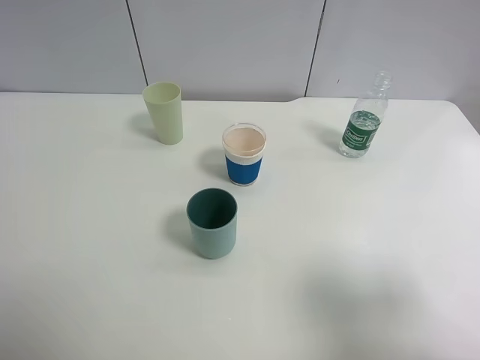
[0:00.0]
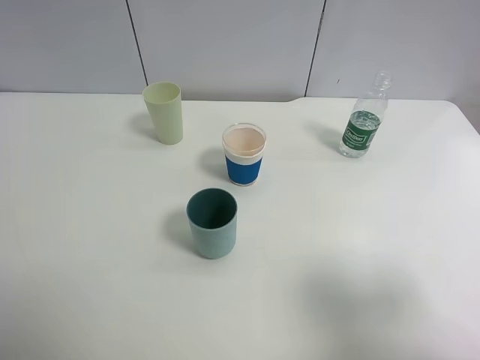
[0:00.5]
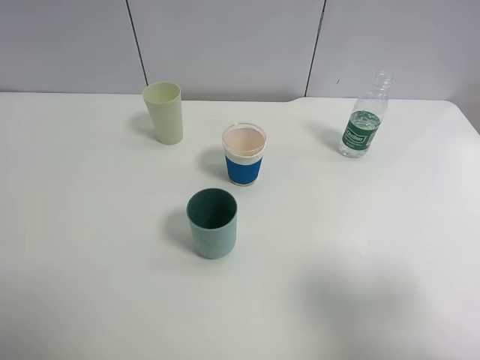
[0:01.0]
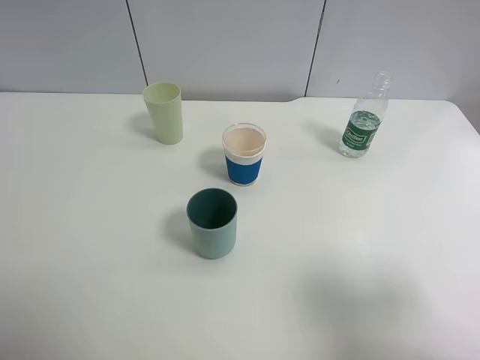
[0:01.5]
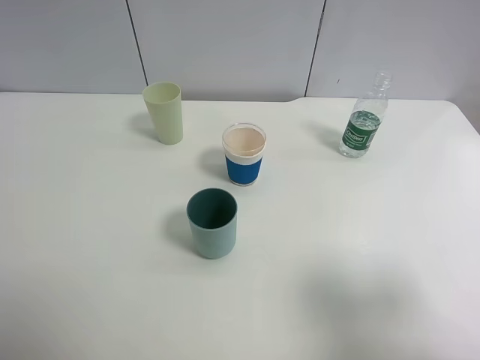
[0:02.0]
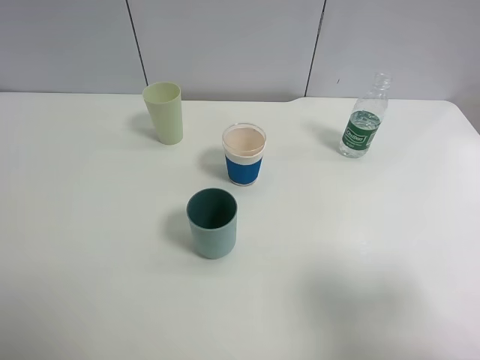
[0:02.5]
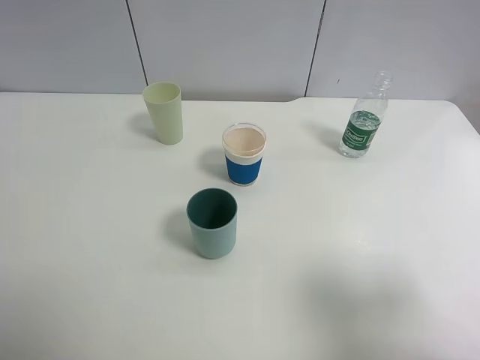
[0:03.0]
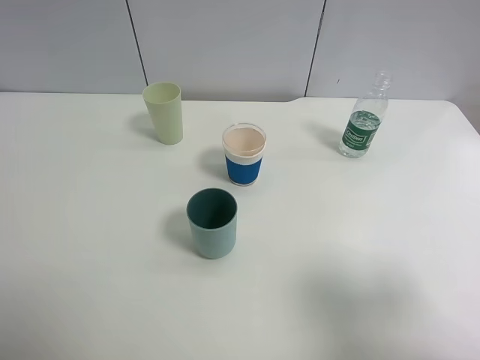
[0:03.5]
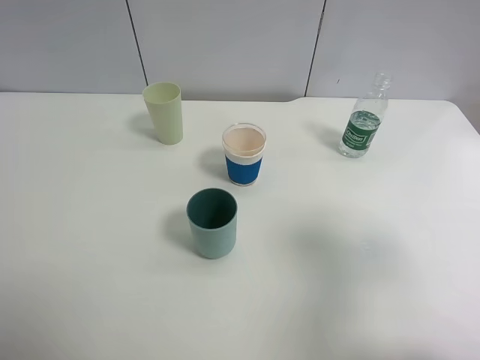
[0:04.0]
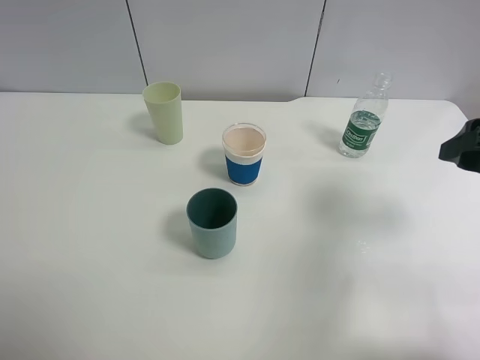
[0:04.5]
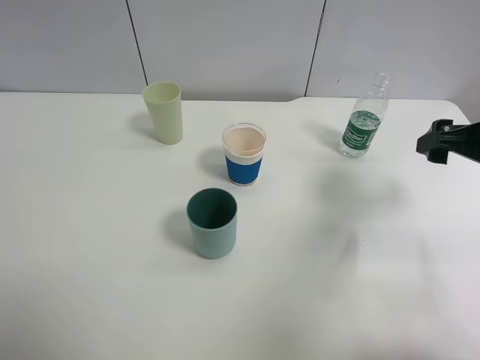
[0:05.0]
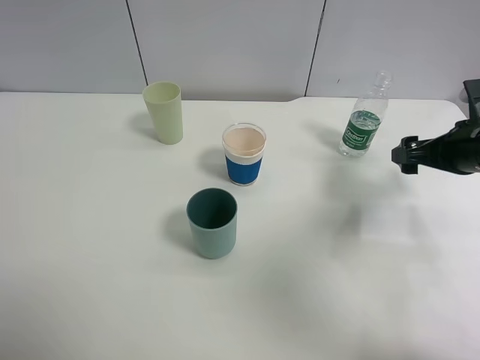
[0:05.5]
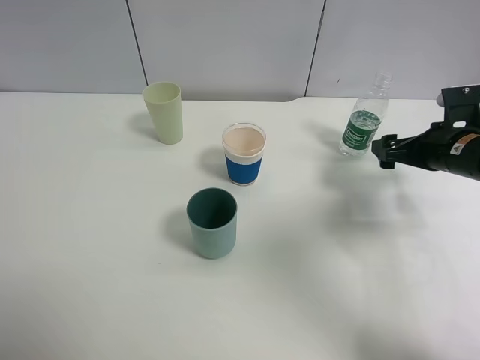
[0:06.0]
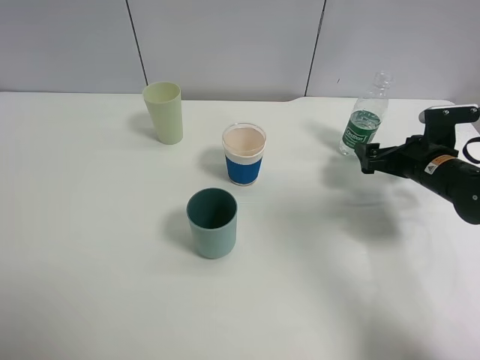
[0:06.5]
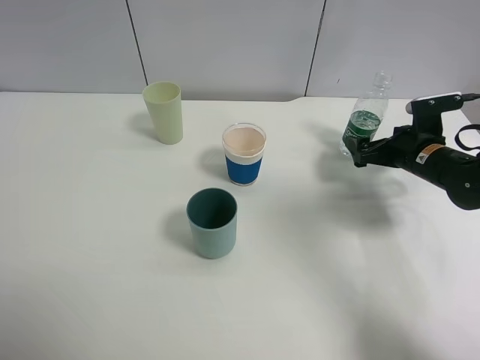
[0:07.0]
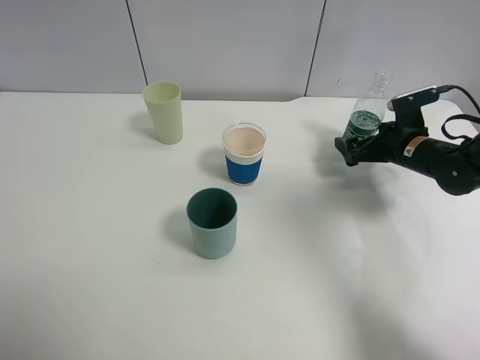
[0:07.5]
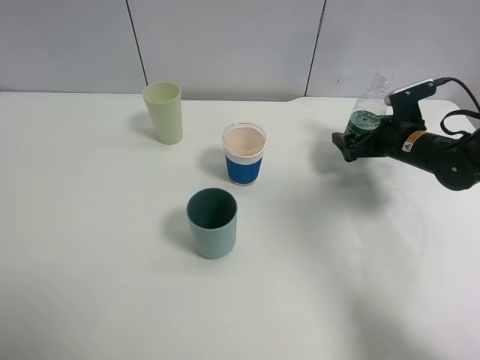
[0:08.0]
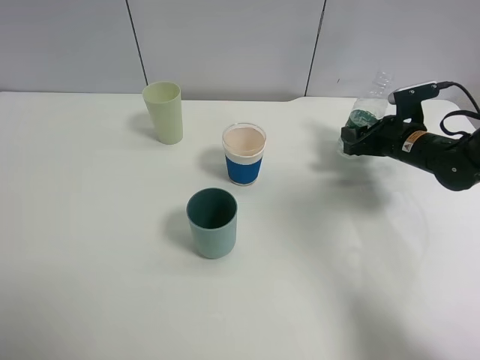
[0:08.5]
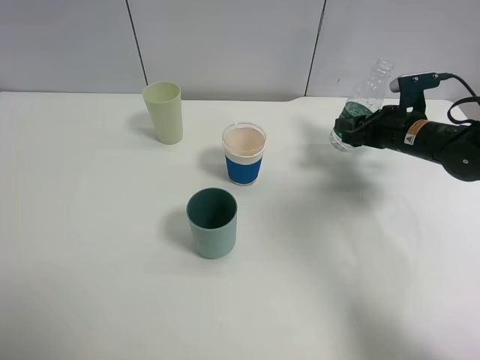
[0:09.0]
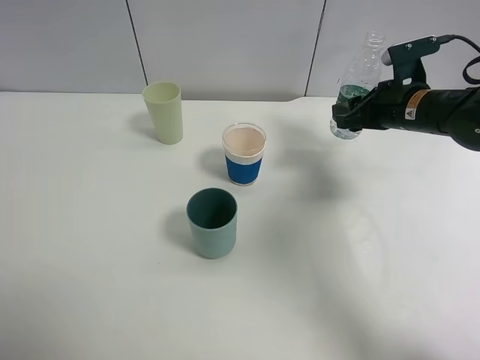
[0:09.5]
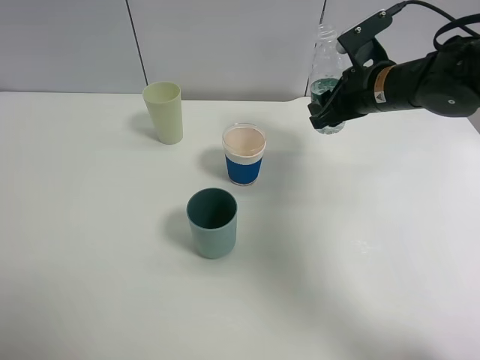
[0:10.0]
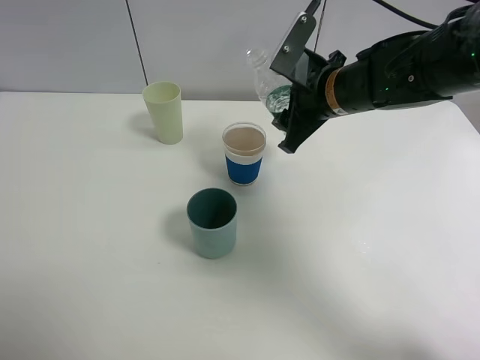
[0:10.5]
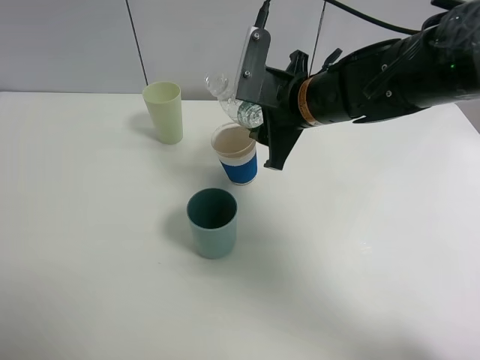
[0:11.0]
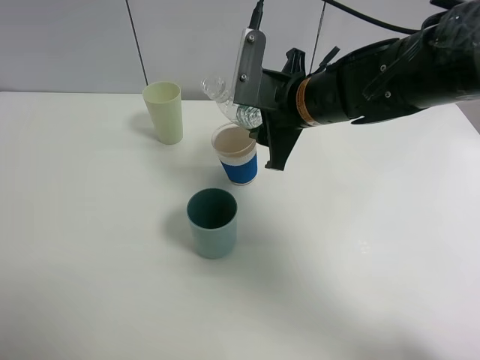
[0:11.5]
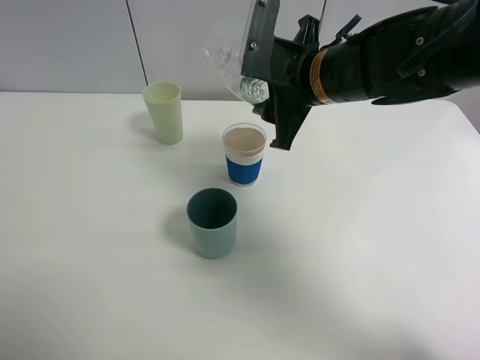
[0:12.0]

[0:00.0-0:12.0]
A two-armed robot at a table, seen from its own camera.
Task of the whole recording: use a clamp to hold the bottle of the drink, pour the beverage into a random cup, then clamp the cup containing the drink and pour the drink into another random cup.
Step, 0:00.0 to 0:09.0: Pick up the water bottle with right gripper.
0:00.0 to 0:02.0: Neither gripper changes place.
0:02.0 to 0:04.0: The right gripper travels forward by approximately 10 cm.
0:04.0 to 0:06.0: The right gripper heads forward and downward, covering some 25 cm.
0:06.0 to 0:08.0: The right gripper moves forward, about 5 cm.
0:08.0 to 0:10.0: The right gripper is displaced upward and to the left by about 15 cm, and closes its fingers.
0:10.0 to 0:12.0: The right gripper travels to the left and backward by about 10 cm.

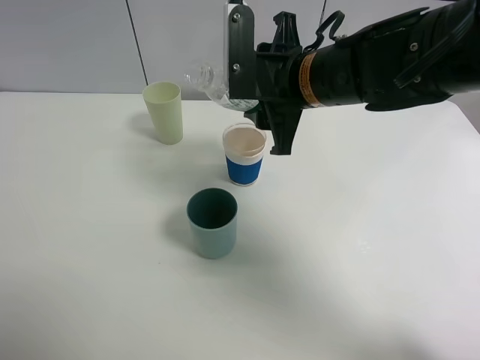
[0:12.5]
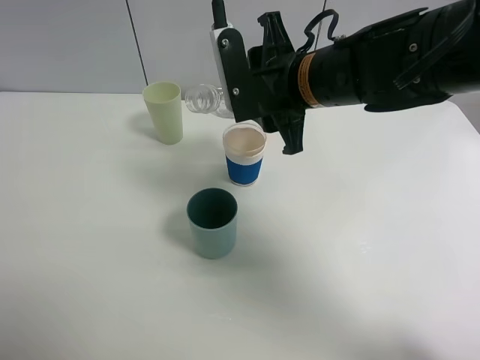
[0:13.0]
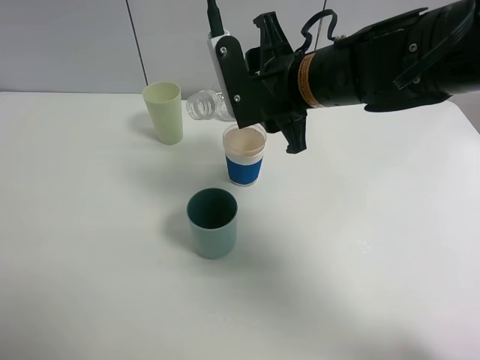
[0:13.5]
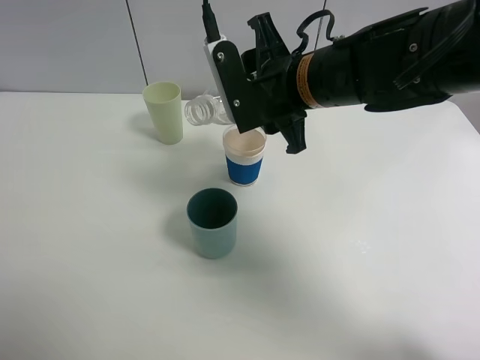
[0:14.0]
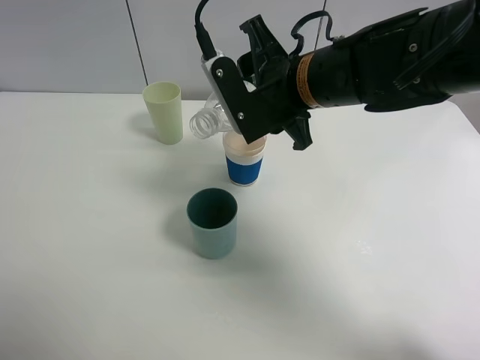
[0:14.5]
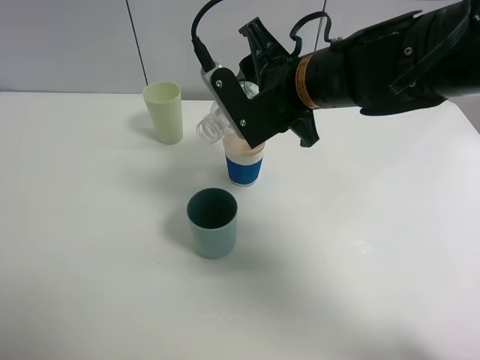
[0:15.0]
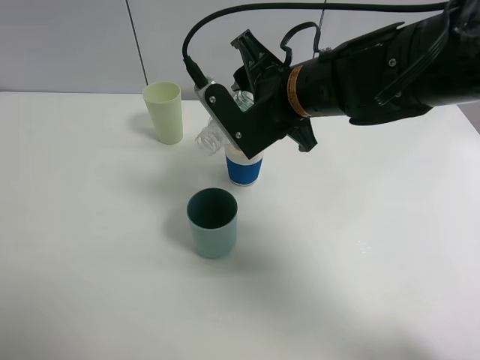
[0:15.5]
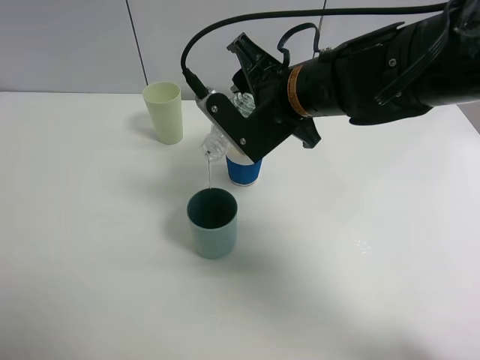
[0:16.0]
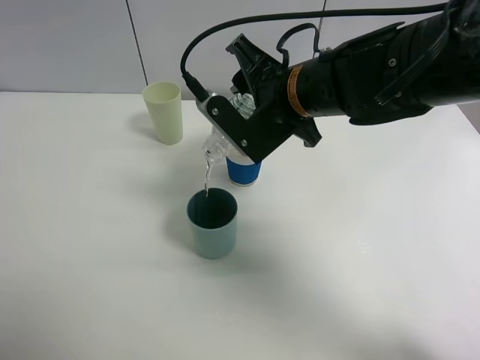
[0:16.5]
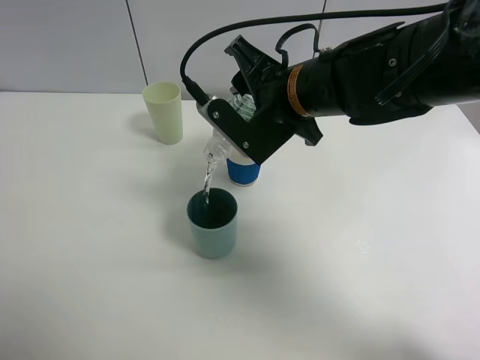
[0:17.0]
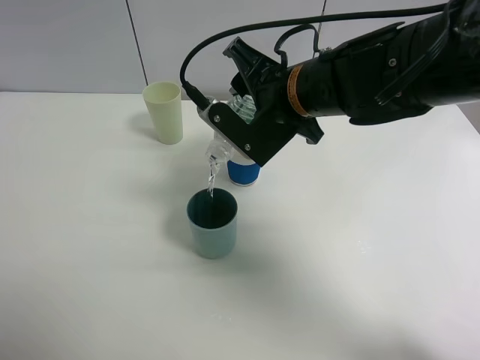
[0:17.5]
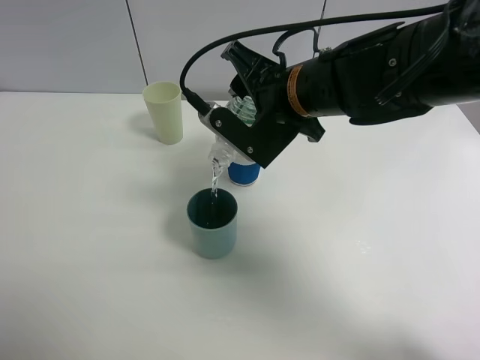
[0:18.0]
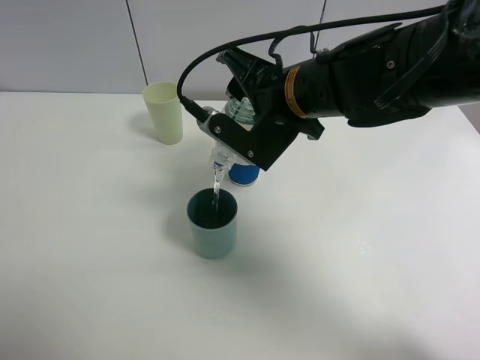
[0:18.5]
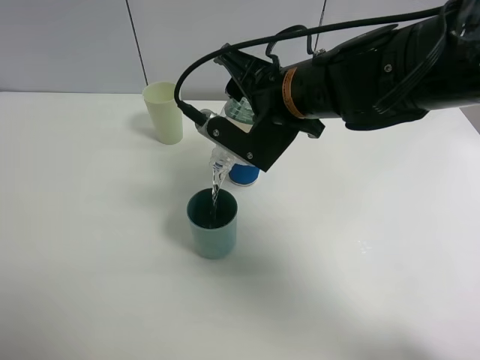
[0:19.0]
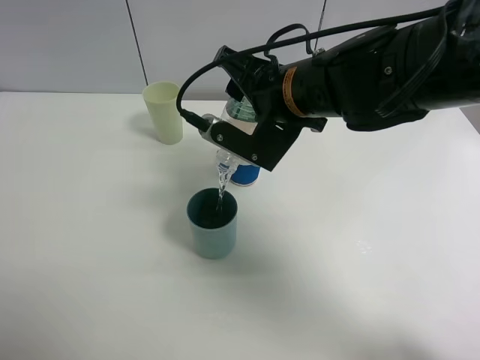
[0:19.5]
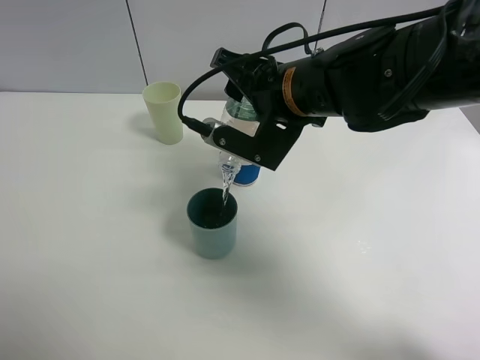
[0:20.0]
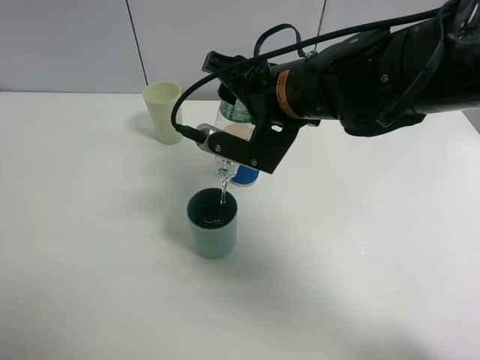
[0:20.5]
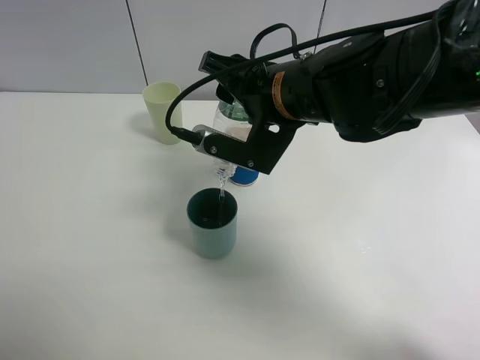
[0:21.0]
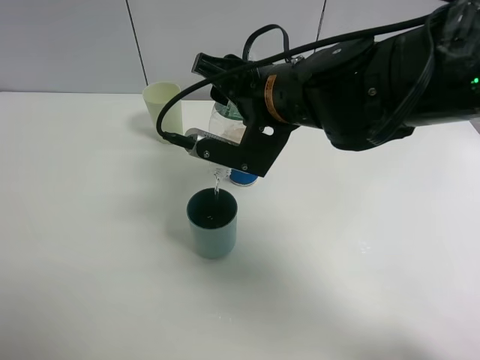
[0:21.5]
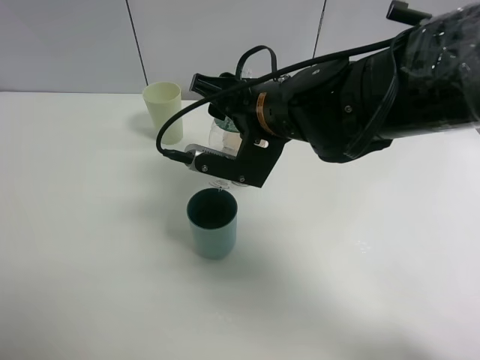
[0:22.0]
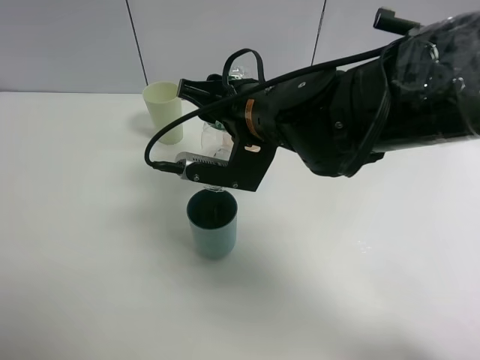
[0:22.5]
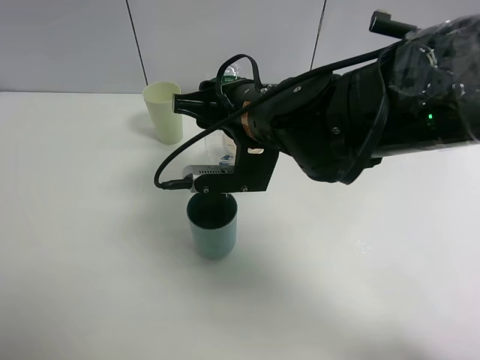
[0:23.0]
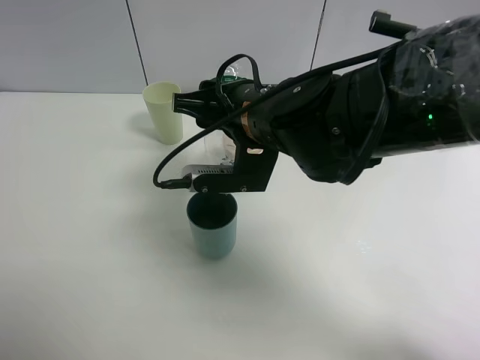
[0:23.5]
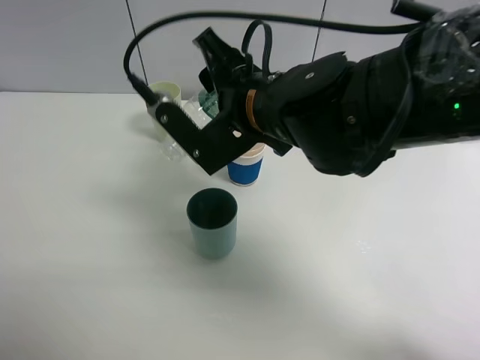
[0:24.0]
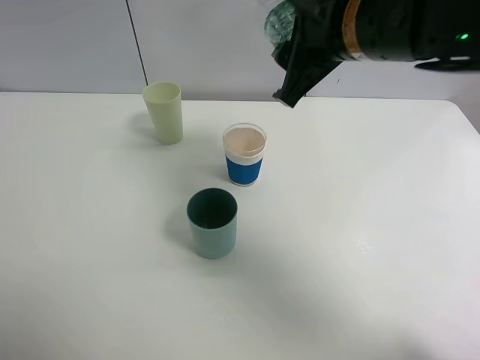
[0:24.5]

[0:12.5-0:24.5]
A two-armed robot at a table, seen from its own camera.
Task of the whole recording: use a clamp to hold the bottle of the drink, pour the beverage into a random cup, then clamp the cup containing the drink and pour the drink into another random cup.
Step, 0:12.5 to 0:24.0: Pour water into the blue plastic cup with right gripper.
0:14.5 to 0:16.5: The grippers move only a little.
0:16.5 to 0:18.5: The grippers stay close to where they were, moving slightly.
0:18.5 to 0:20.5: The grippers stay close to where they were, moving slightly.
0:20.5 to 0:22.5: The grippers make only small movements.
0:22.5 to 0:24.5: The right gripper travels upward and to the right by about 10 cm.

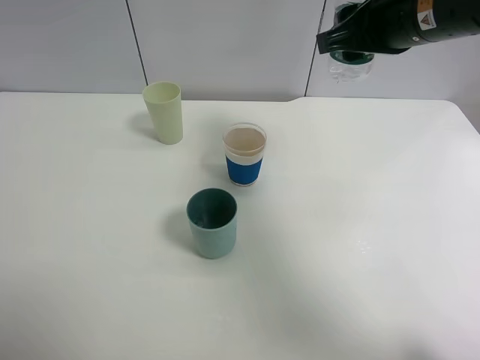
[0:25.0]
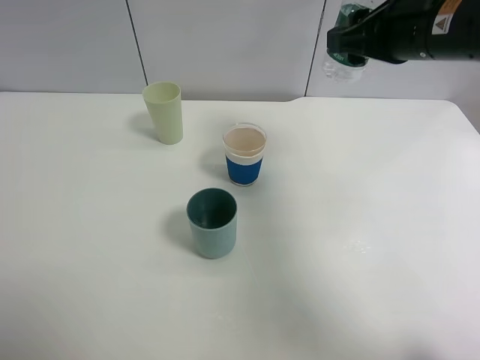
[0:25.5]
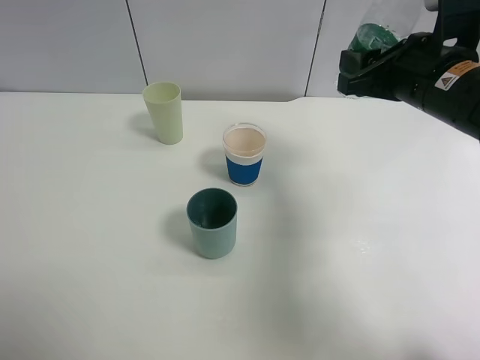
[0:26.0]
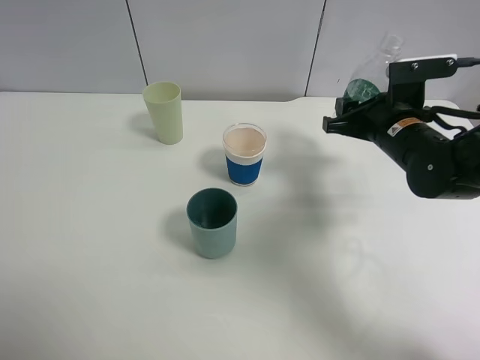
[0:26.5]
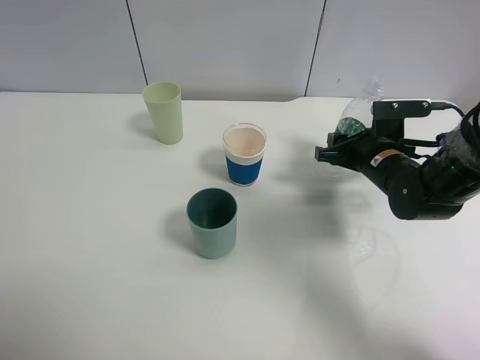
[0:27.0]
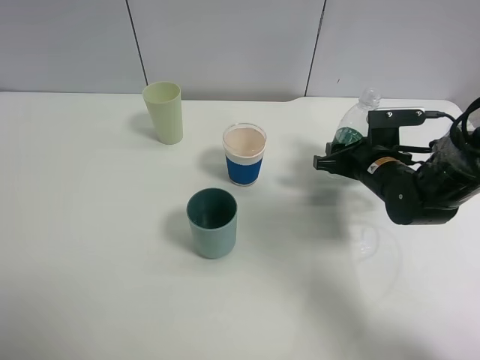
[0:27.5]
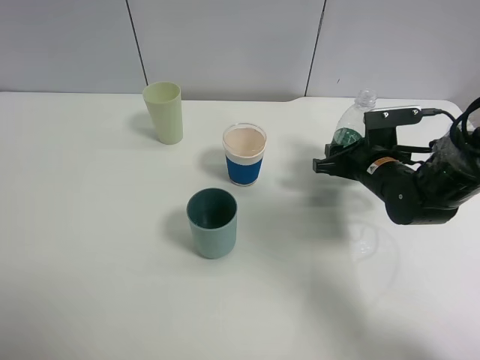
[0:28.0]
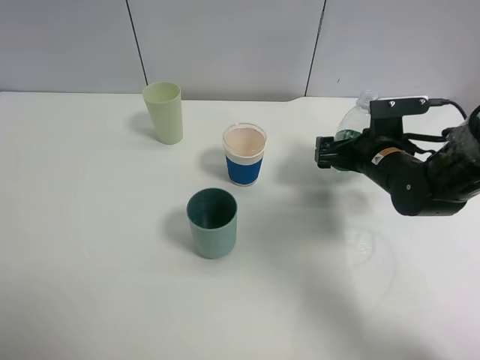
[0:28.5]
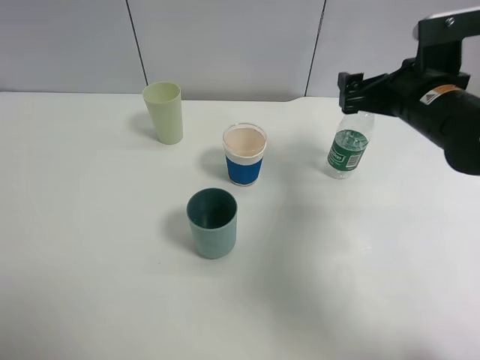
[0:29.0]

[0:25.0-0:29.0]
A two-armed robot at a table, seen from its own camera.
Task of the whole recording: use a clamp to hold the bottle of the drink, pour the beverage into a random cup, then clamp the cup containing the drink and pour the drink into another random cup.
Step, 0:25.0 to 0:28.5: Place the water bottle on the table with right gripper.
0:25.0 to 0:27.0: The right gripper goes about 20 cm downward.
0:27.0 to 0:29.0: The right gripper shifts roughly 15 cm upward, and opens up.
